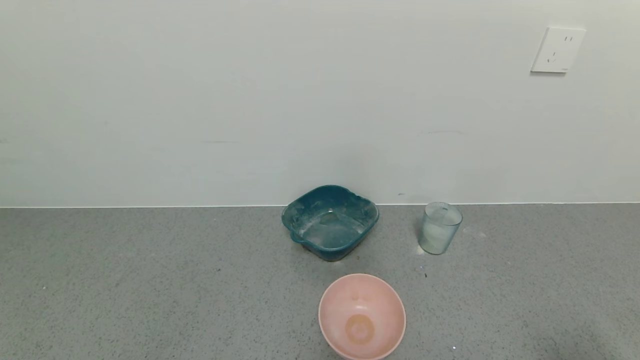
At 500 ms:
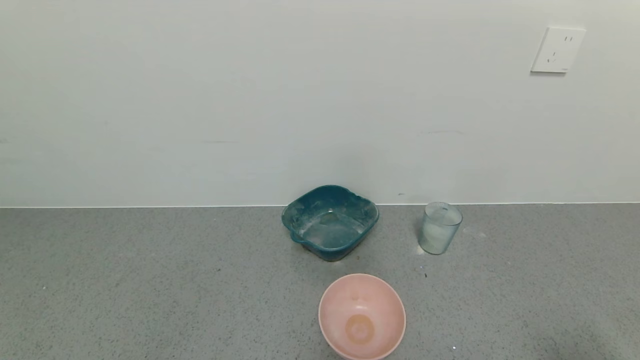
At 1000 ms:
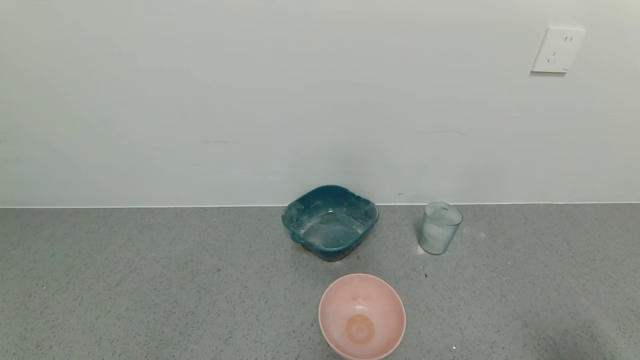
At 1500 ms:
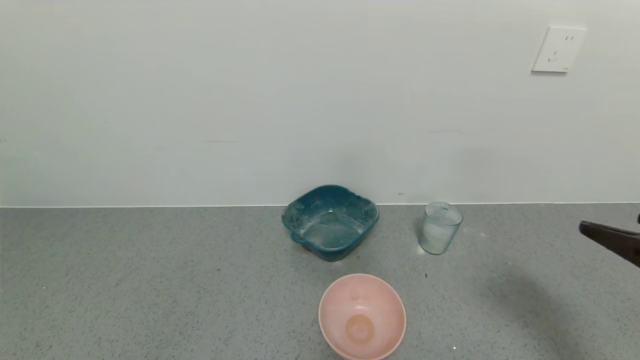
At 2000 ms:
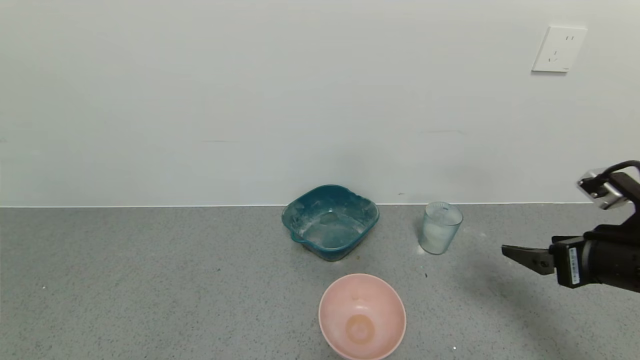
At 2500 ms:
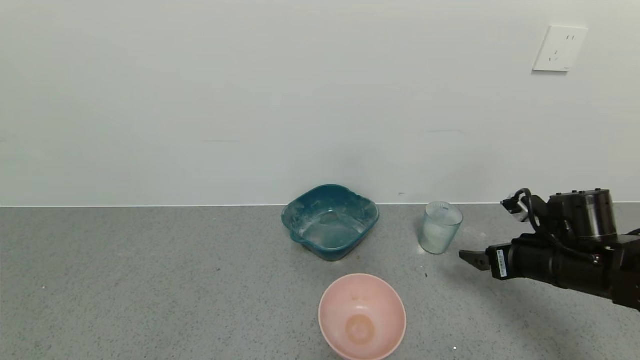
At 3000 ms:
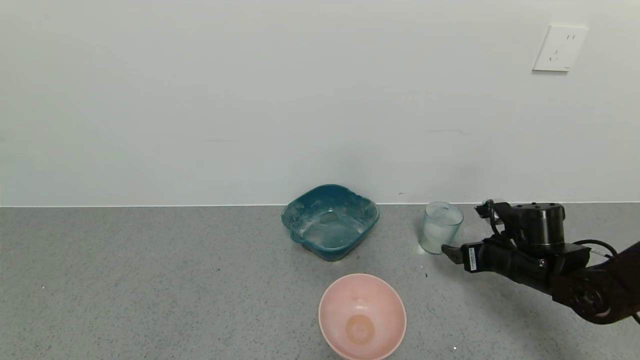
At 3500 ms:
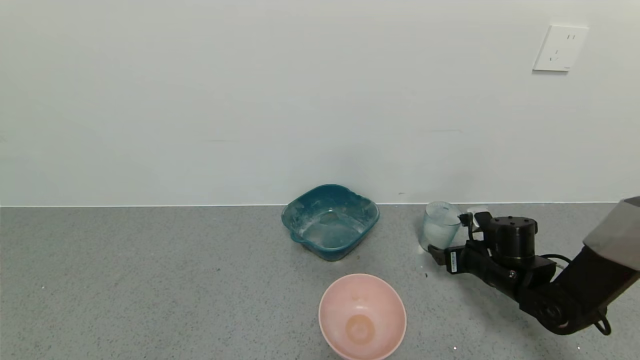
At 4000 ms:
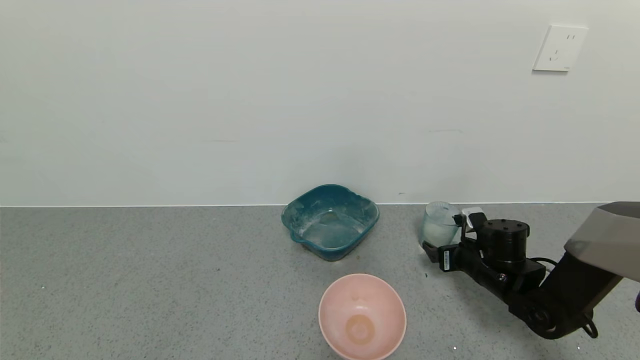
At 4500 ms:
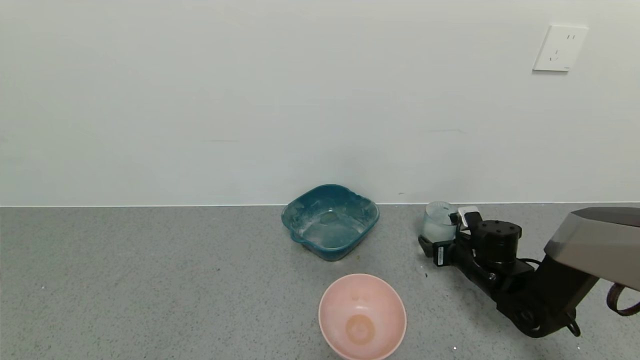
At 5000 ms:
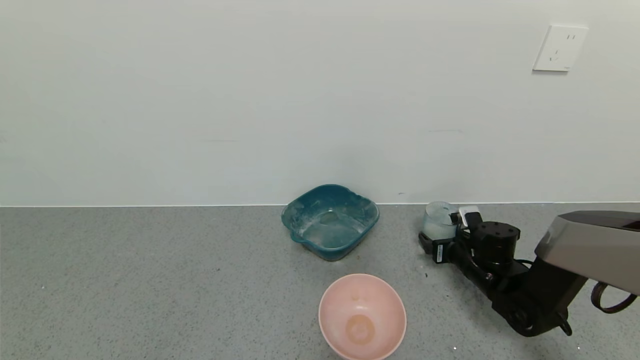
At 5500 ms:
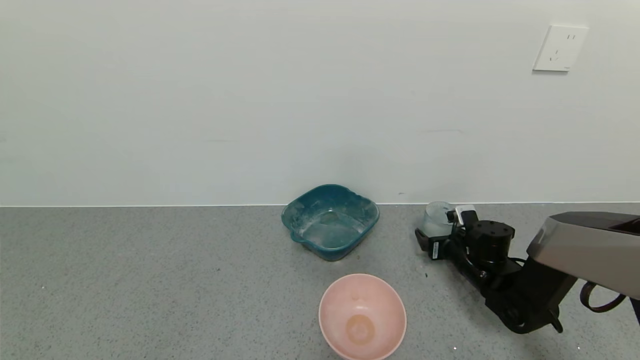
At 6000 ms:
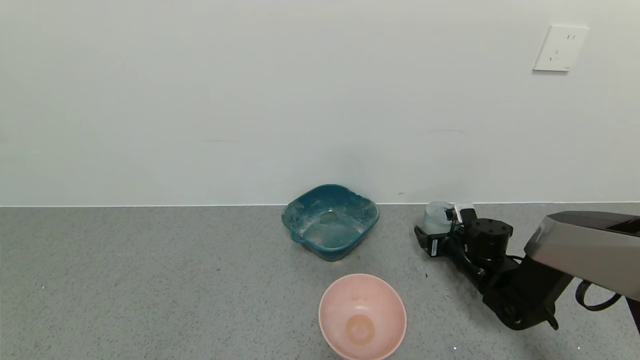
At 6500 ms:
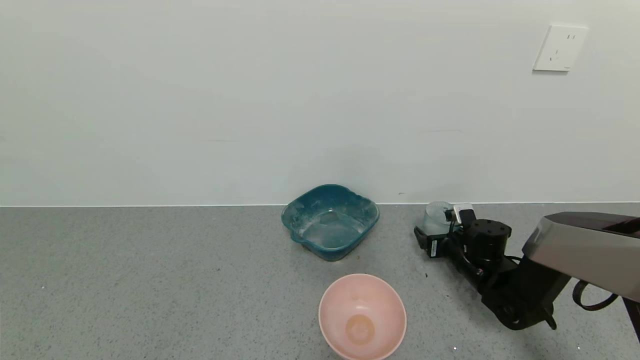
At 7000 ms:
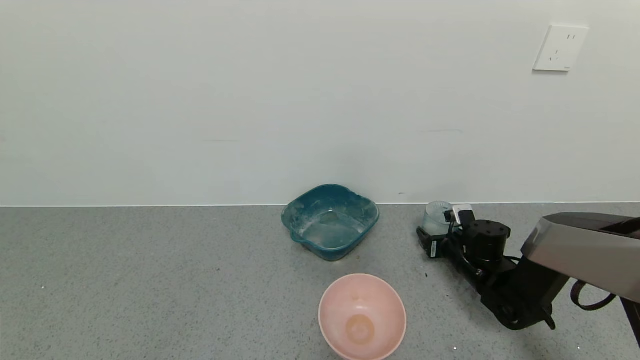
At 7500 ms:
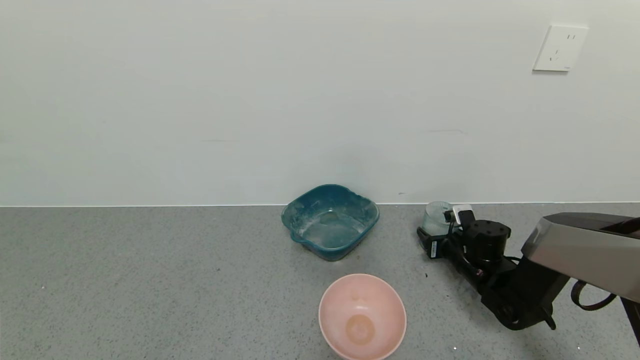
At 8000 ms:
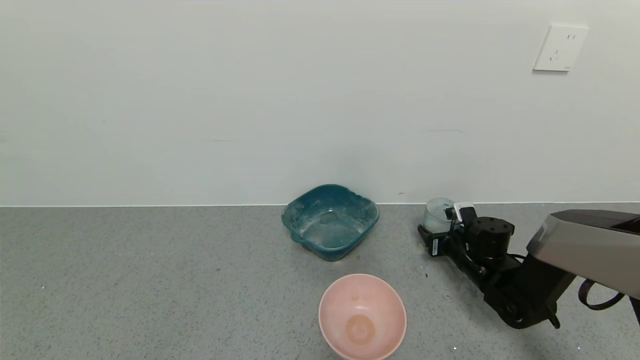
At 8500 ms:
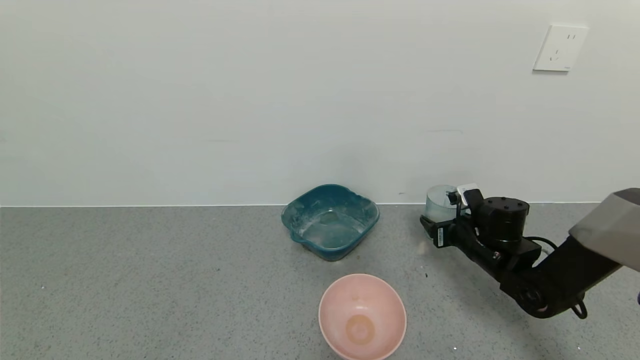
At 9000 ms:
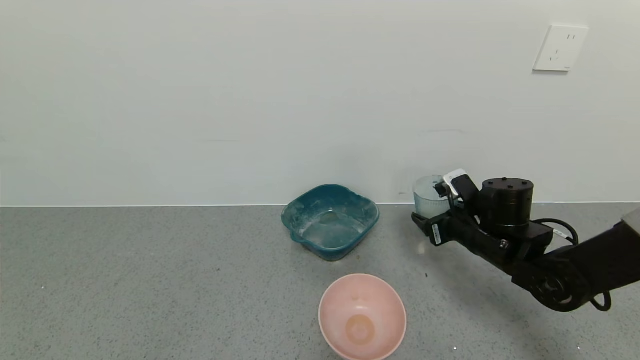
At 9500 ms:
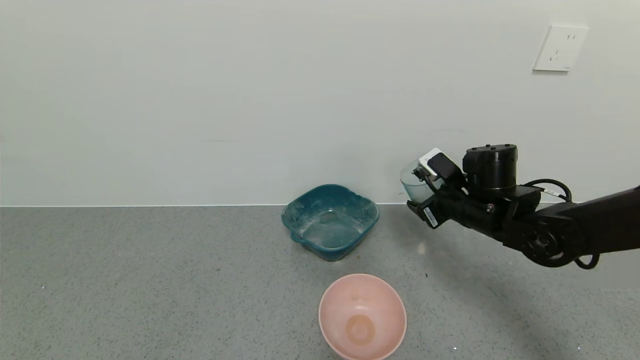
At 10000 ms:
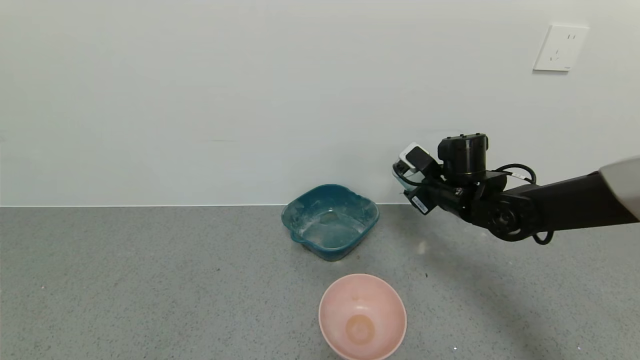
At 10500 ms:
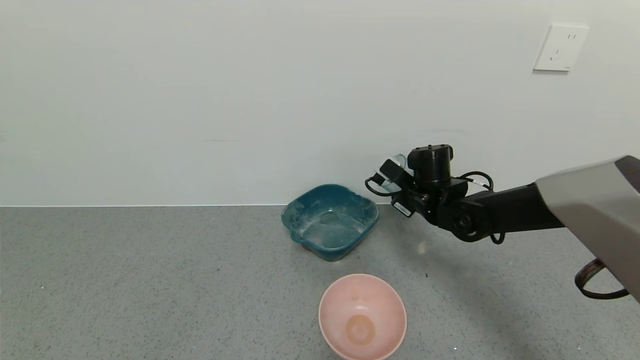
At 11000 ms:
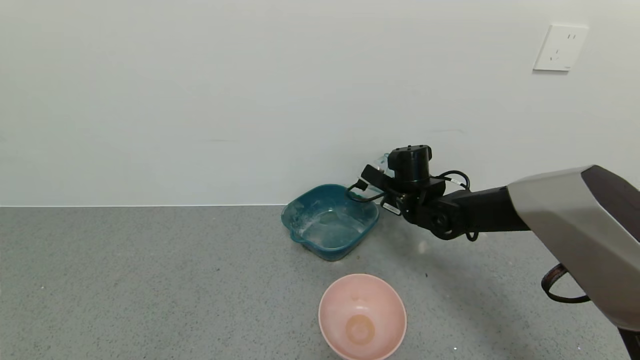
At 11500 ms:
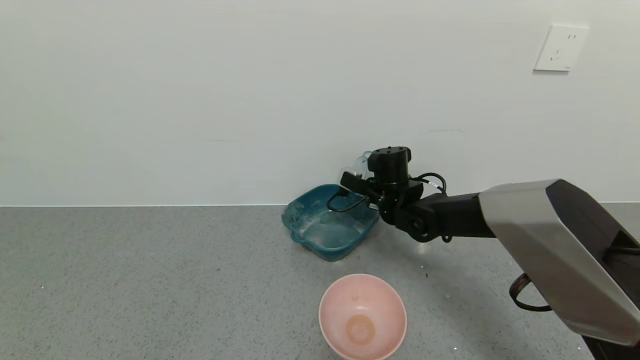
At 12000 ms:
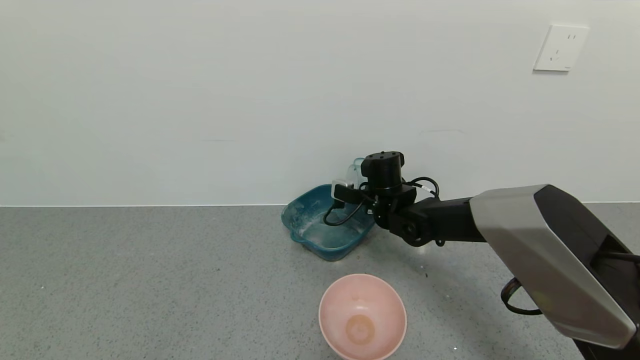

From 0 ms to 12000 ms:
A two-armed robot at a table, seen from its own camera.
Task of the whole recording: use a gripper to pick up the cup and pour the powder into a bowl or tray.
Step, from 0 ms to 7000 ms: Grasp the glass of powder with the right gripper.
From 0 ms to 2000 ms: The right gripper is displaced forward and upward by approximately 25 cm.
From 2000 ms to 4000 ms: The right gripper is displaced downward and forward by some 20 cm.
From 4000 ms to 6000 ms: The grippers make only small movements.
From 6000 ms to 8000 ms: The right gripper closes its fingers.
From 8000 ms to 10000 ms: The right gripper travels upward and to the left by approximately 15 cm.
From 10000 ms to 12000 ms: The right gripper heads to the left, covering approximately 10 cm.

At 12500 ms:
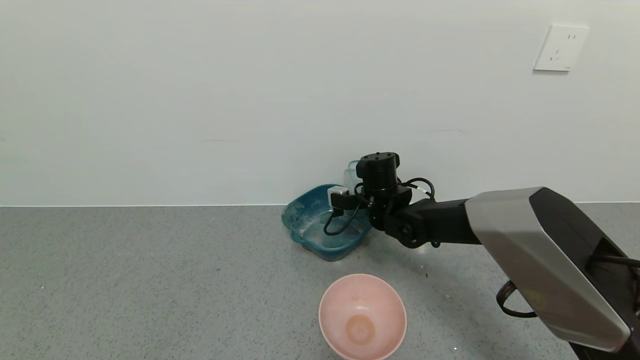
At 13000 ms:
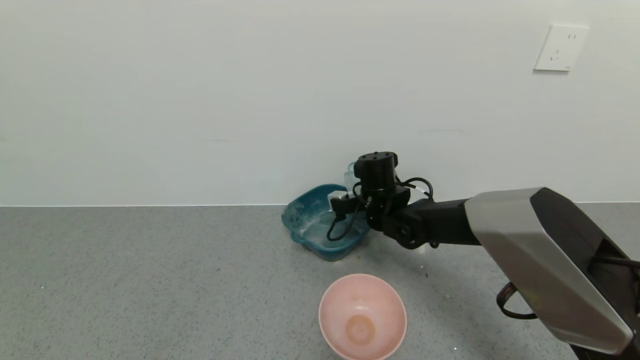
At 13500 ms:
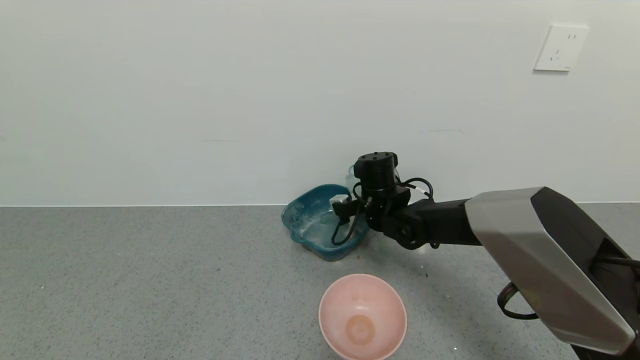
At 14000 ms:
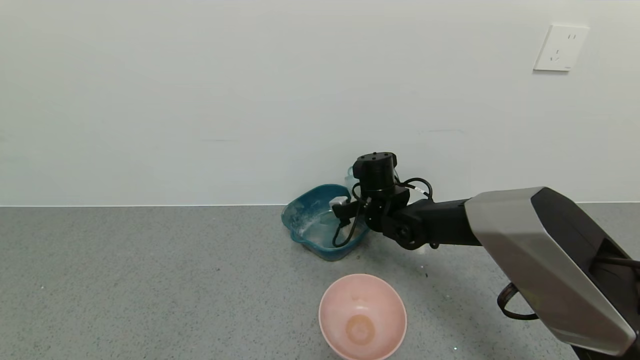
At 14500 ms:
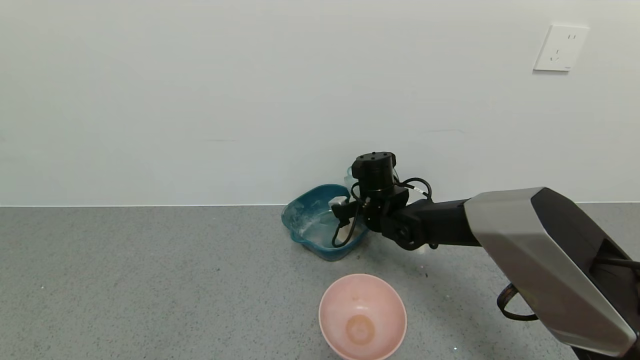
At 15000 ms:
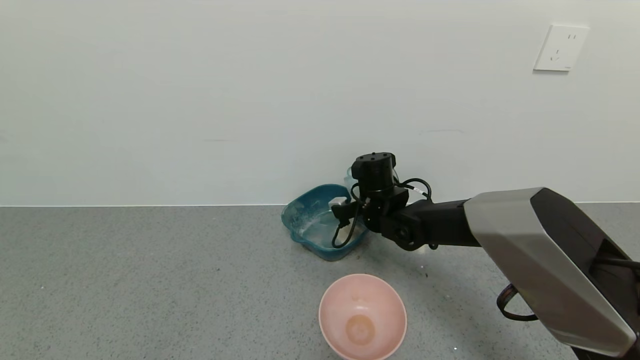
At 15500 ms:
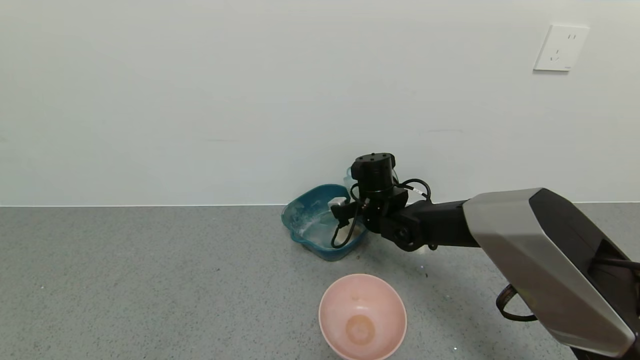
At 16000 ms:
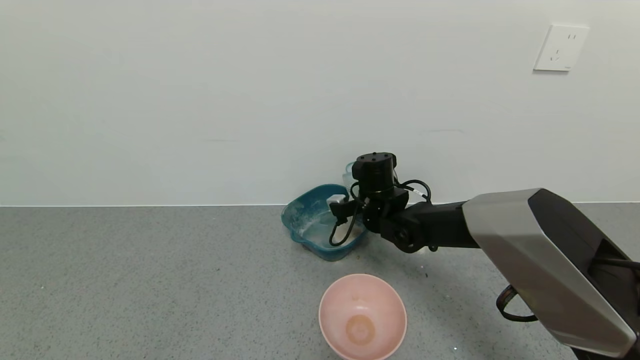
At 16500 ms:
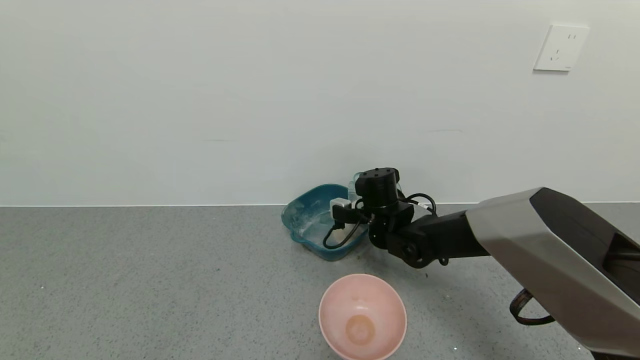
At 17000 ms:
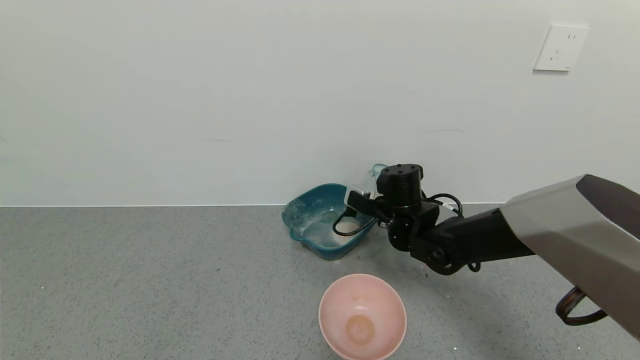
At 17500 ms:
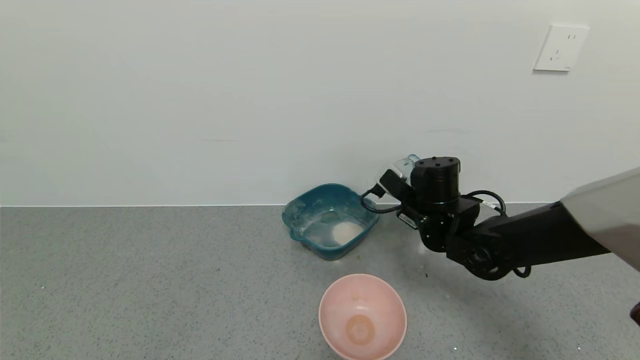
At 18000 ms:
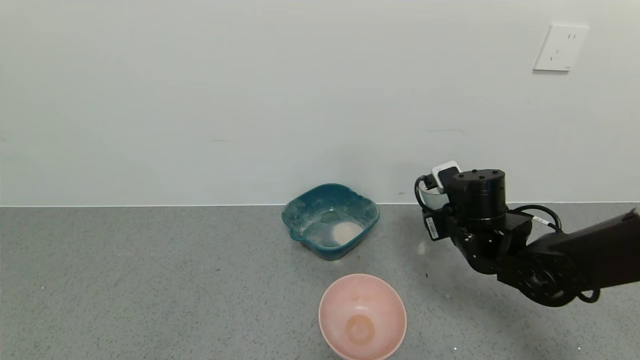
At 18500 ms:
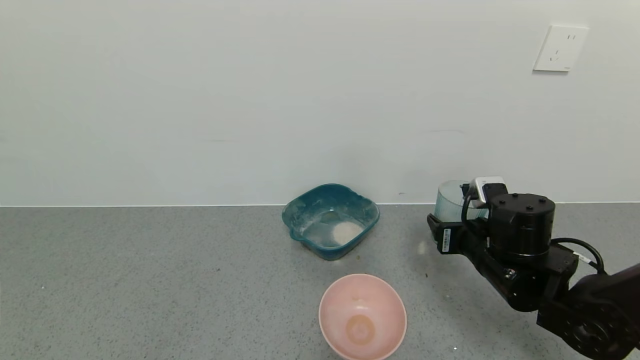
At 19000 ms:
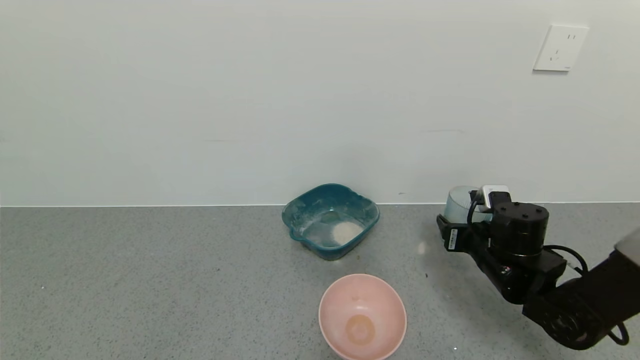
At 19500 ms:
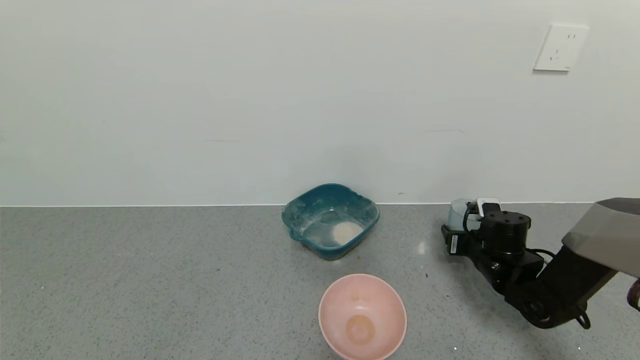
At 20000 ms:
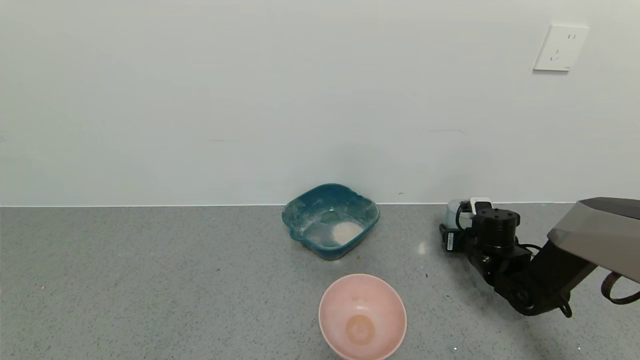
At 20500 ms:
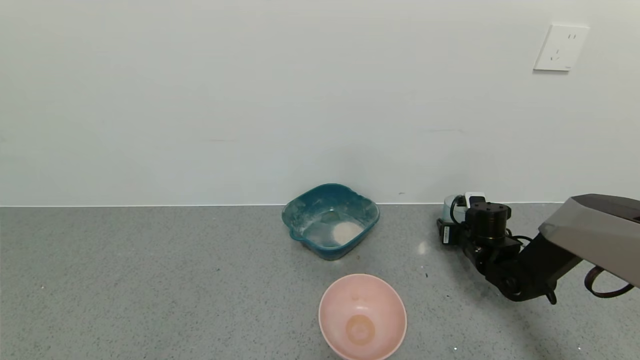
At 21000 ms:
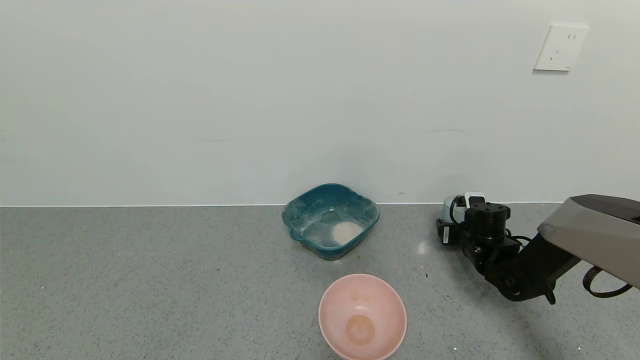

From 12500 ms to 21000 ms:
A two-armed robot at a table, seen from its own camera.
Task of the whole recording: use a gripper to pick up the cup and pour the powder into a bowl or tray.
From 12500 ms to 14500 ms: The grippers make only small movements.
From 16500 ms to 19000 ms: The right gripper moves to the right and backward, approximately 20 cm.
From 19000 ms to 21000 ms: The right gripper moves forward and downward, some 10 cm, and opens up.
